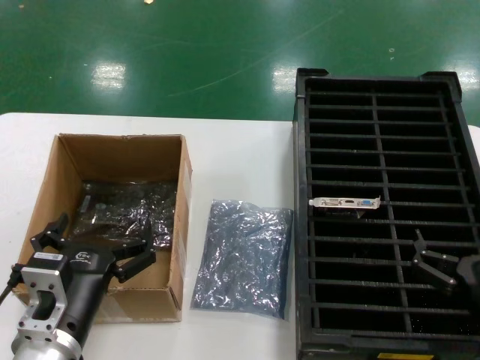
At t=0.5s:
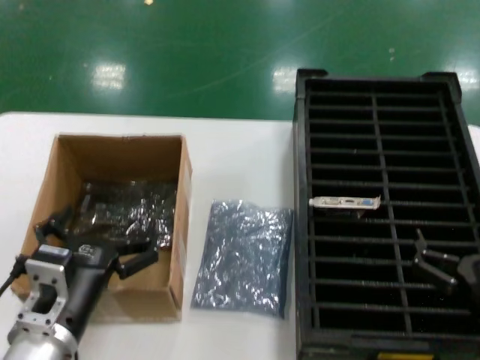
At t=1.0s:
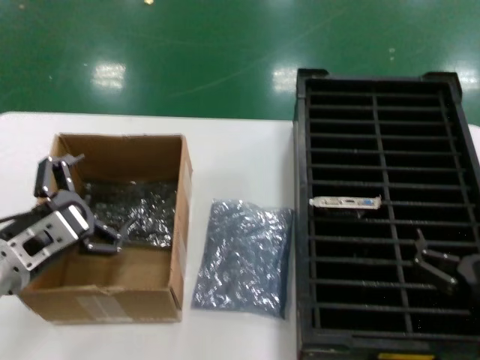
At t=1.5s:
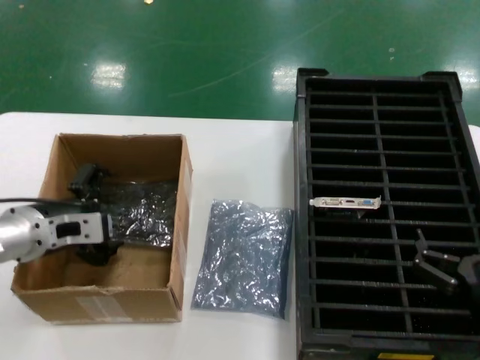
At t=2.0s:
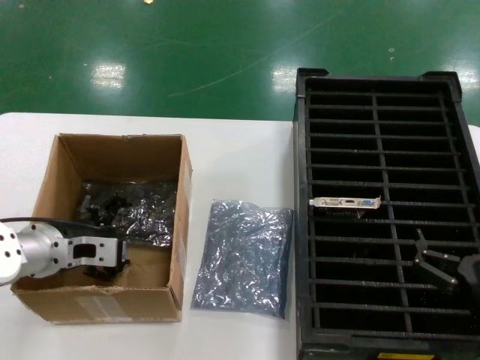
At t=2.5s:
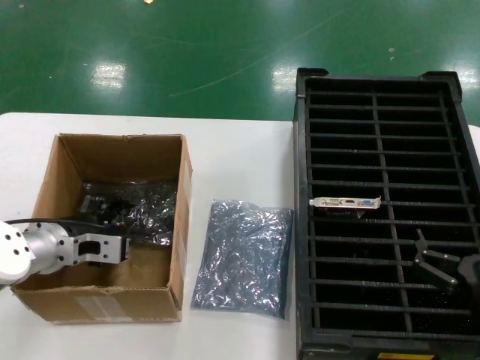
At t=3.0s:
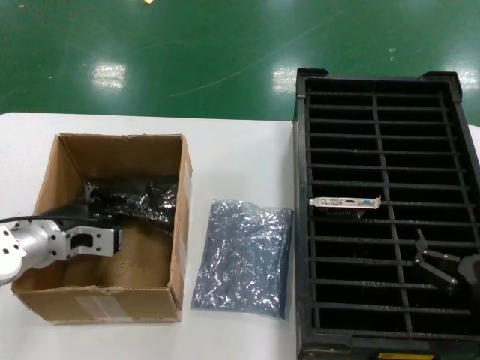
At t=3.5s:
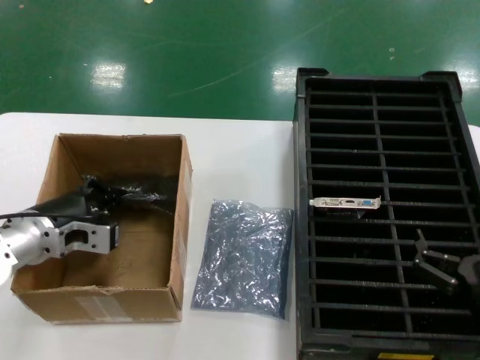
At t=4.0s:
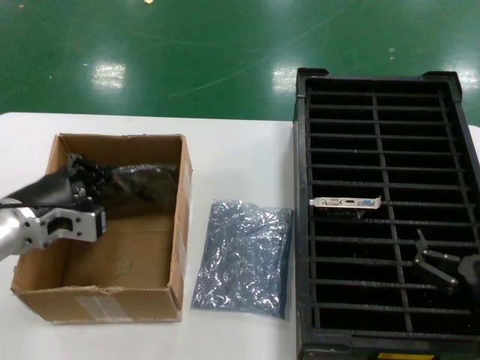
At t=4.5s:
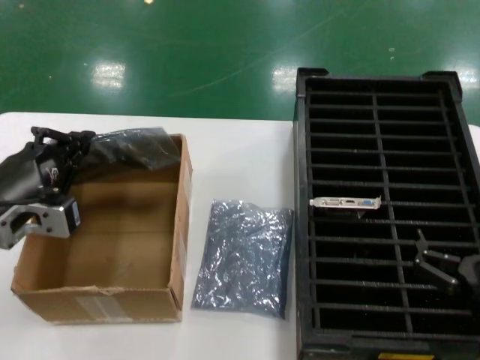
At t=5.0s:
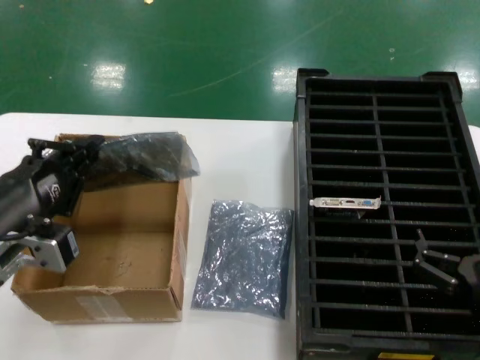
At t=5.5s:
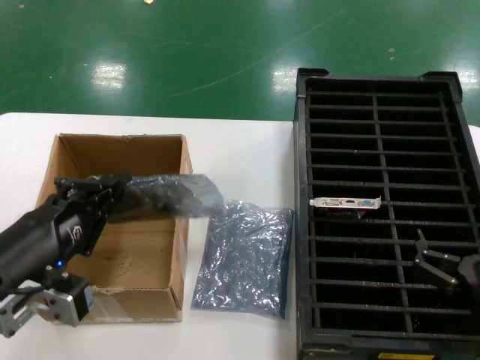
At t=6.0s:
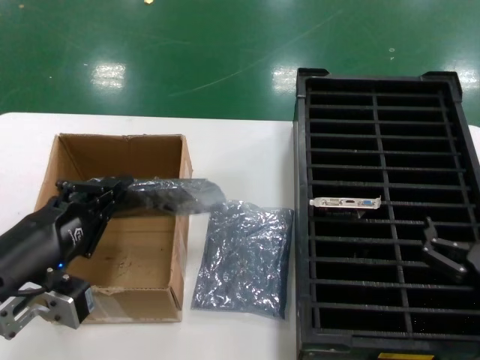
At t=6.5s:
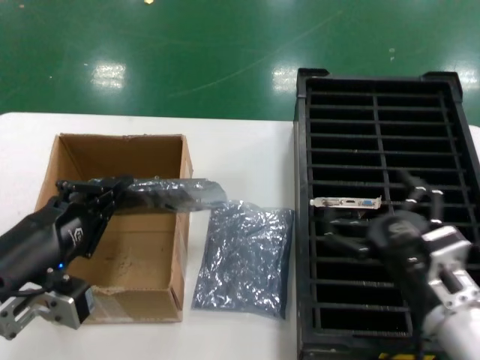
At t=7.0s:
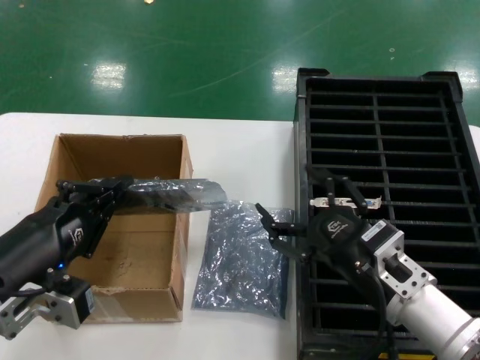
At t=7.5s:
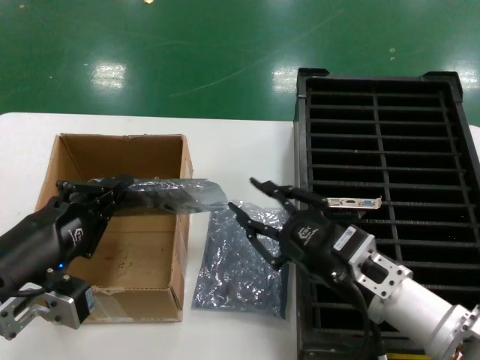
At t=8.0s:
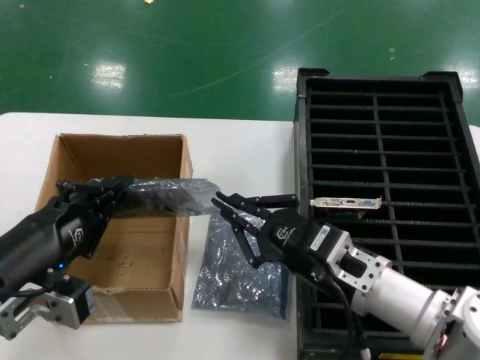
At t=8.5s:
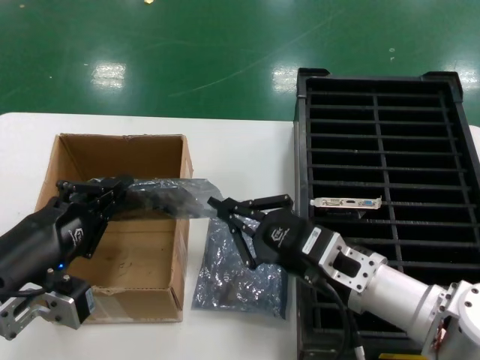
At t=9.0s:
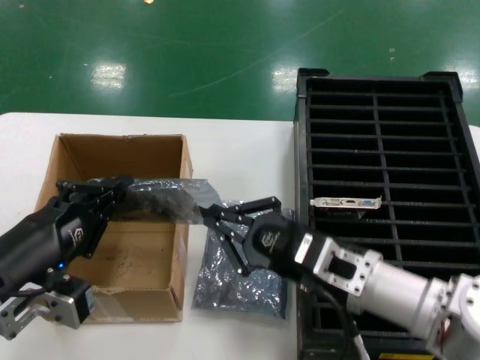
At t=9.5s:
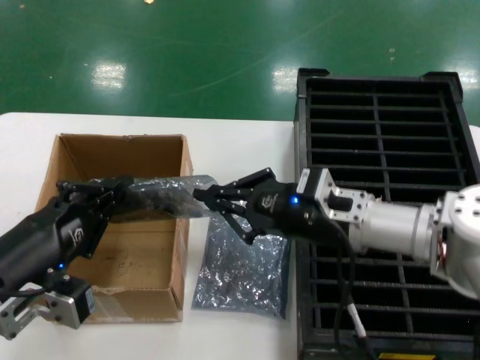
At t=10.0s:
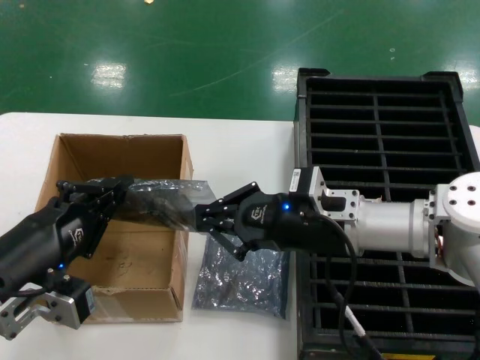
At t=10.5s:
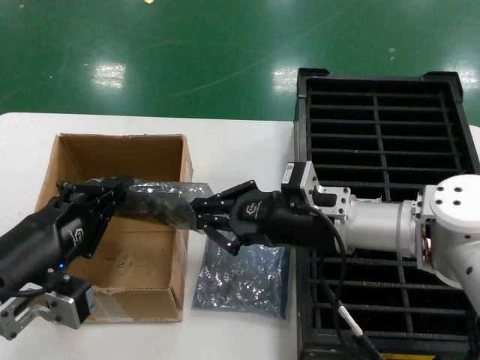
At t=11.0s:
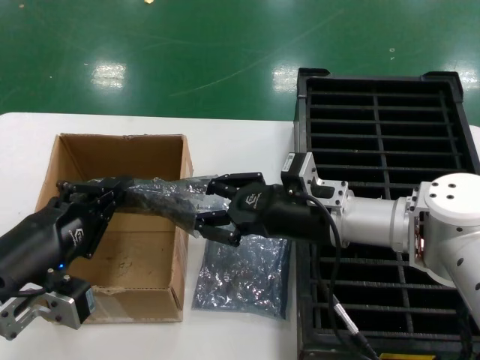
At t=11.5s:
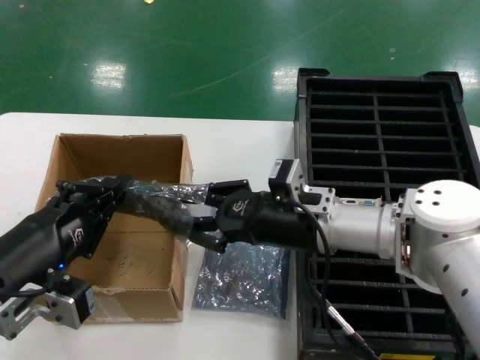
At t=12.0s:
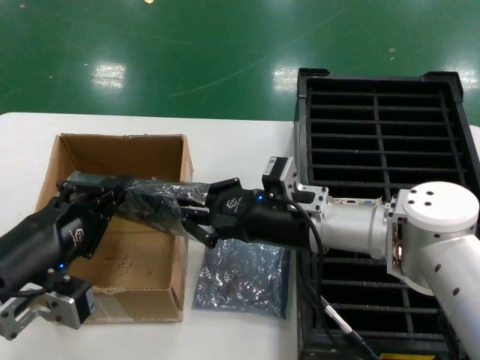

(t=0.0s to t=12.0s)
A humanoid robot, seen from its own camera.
Task of the whole recording: take out graphics card from box remove packaging put into black container.
Step, t=0.0s - t=2.5s: Grasp the bag.
Step, t=3.5s - t=5.5s: Lift the bag.
t=0.0s - t=2.0s: The left hand heads forward and to the left, covering roughly 20 cm.
t=2.0s - t=4.0s: The hands stay close to where they were, moving slightly.
t=4.0s - t=6.0s: The left hand travels backward by about 15 cm.
t=6.0s - t=8.0s: The right hand heads to the left and forward, covering approximately 15 cm.
t=8.0s - t=10.0s: The right hand goes about 10 cm forward and upward.
t=10.0s - t=12.0s: The hands stay close to where they were, moving slightly.

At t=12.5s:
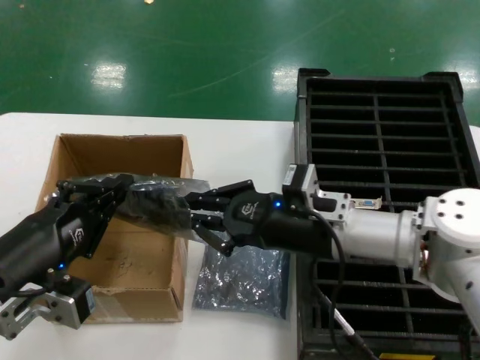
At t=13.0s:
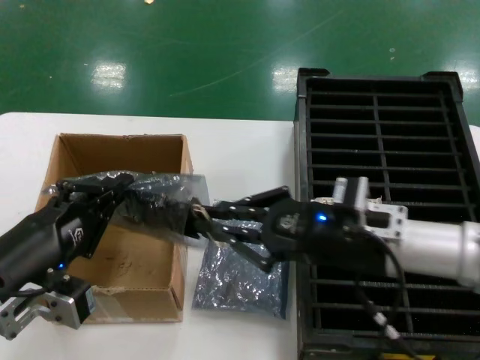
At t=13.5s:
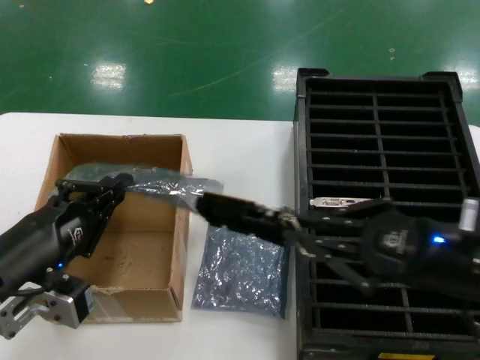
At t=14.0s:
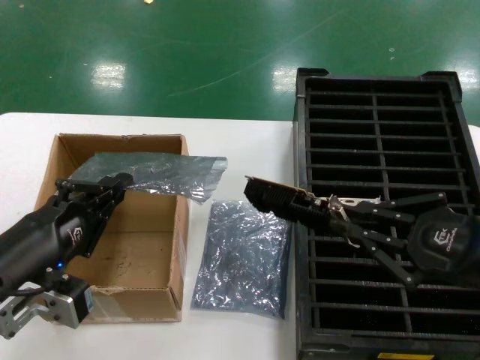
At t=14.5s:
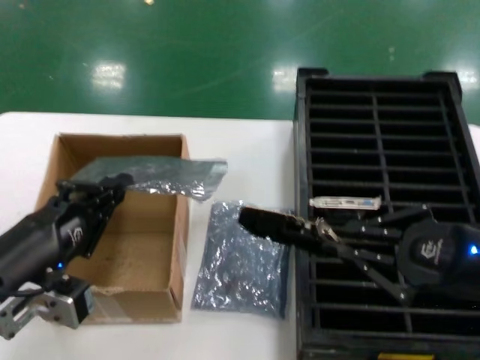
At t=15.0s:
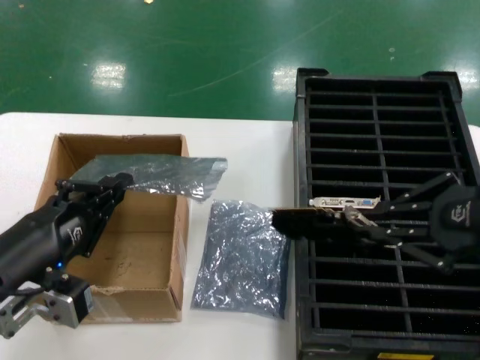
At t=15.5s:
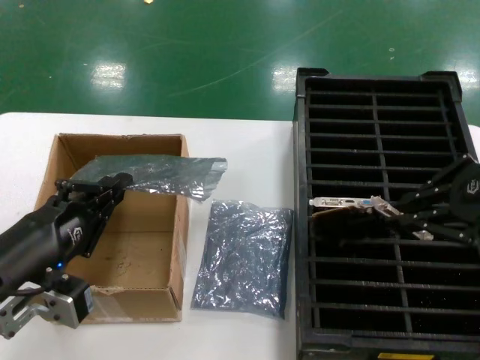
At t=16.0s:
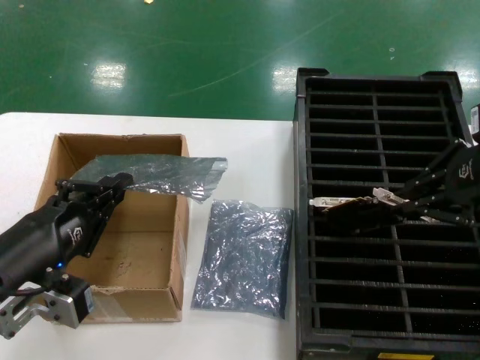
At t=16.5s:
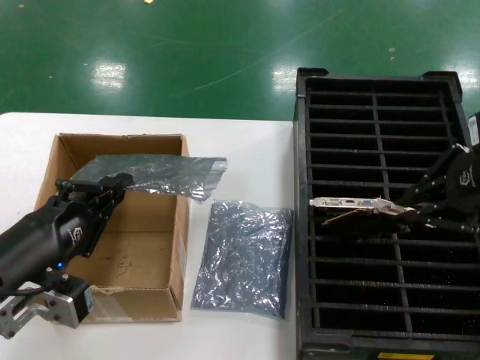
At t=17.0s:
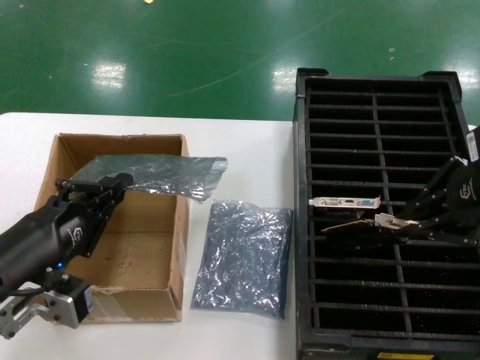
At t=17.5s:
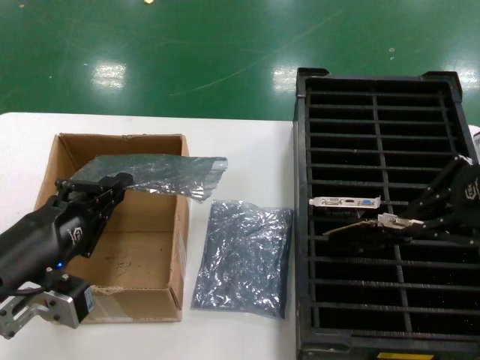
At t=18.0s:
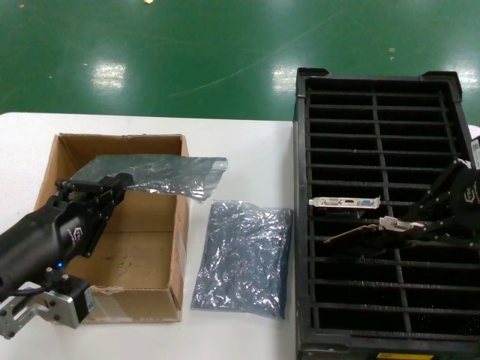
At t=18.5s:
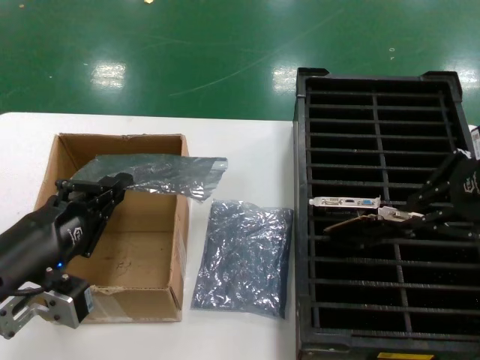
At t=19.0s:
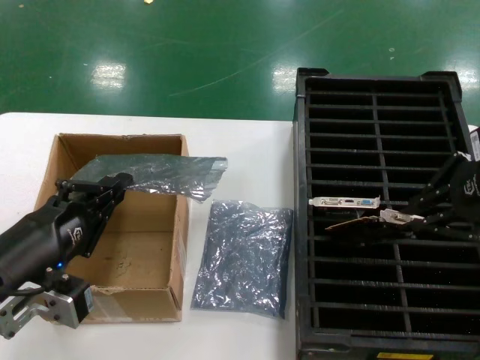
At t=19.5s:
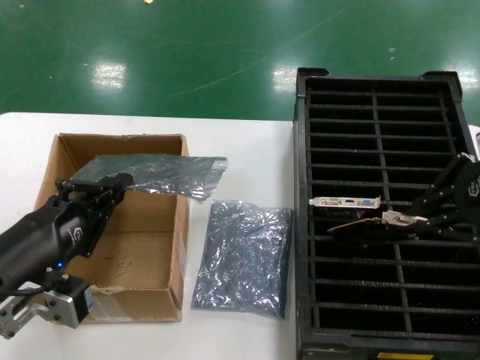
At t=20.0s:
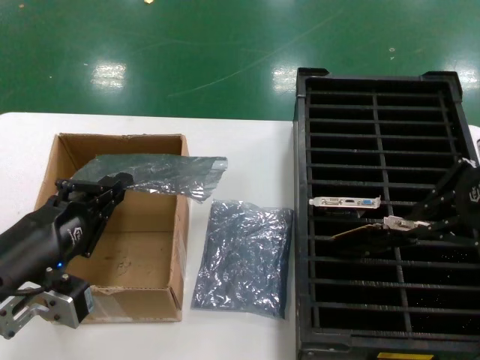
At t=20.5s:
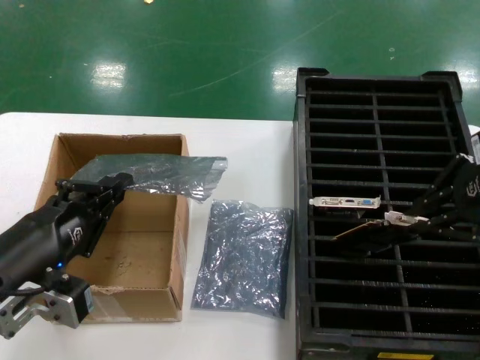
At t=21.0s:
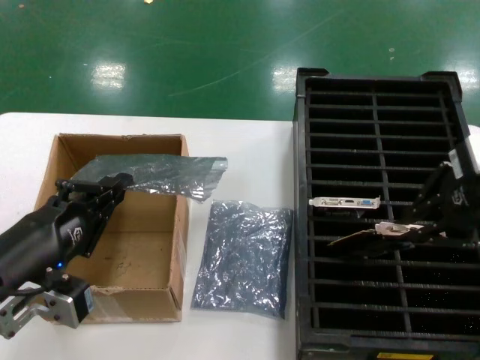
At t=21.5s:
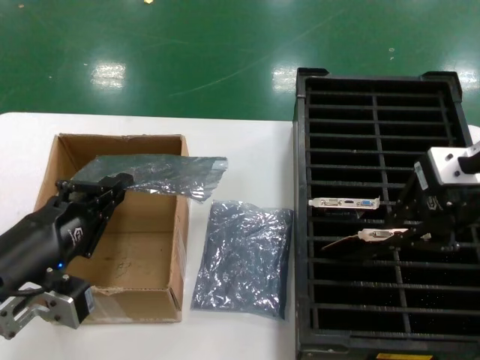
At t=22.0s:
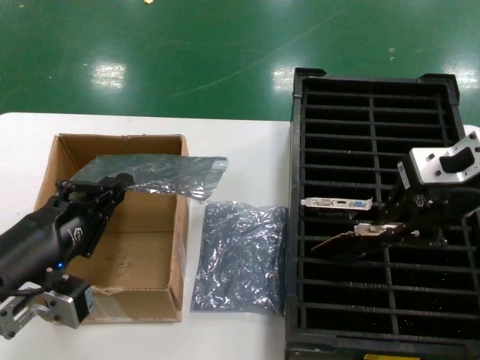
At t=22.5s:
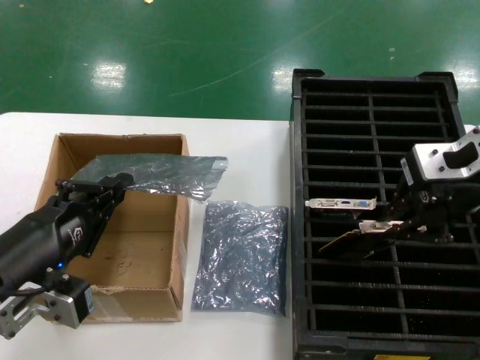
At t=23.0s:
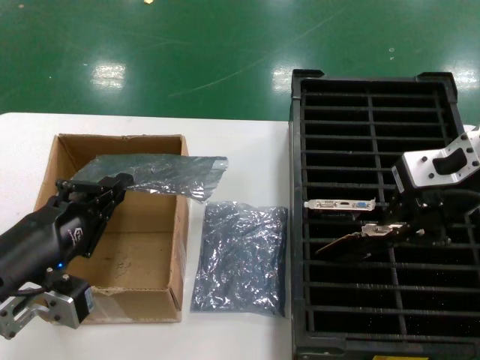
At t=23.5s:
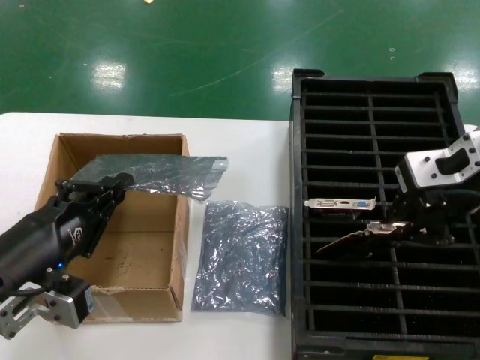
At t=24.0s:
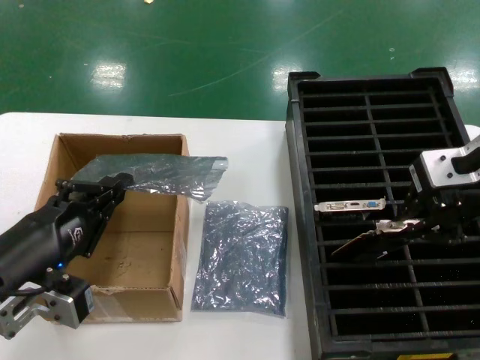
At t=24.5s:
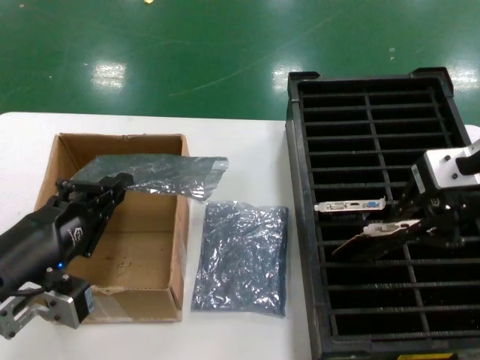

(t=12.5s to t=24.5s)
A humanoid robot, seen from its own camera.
Task of the whole recording: take out graphics card from box remove packaging put into black container.
t=12.5s - t=14.5s: The right hand travels to the right and backward by roughly 25 cm.
t=14.5s - t=16.5s: The right hand goes about 15 cm upward and forward.
t=16.5s - t=18.5s: The hands make only small movements.
t=18.5s - t=20.5s: Neither hand changes place.
t=20.5s - t=22.5s: The right hand goes approximately 5 cm to the left.
t=22.5s - t=24.5s: There are only small adjustments of the hands.

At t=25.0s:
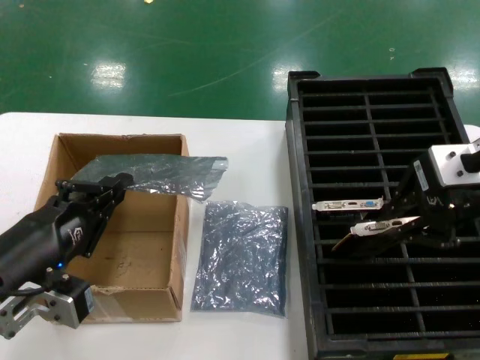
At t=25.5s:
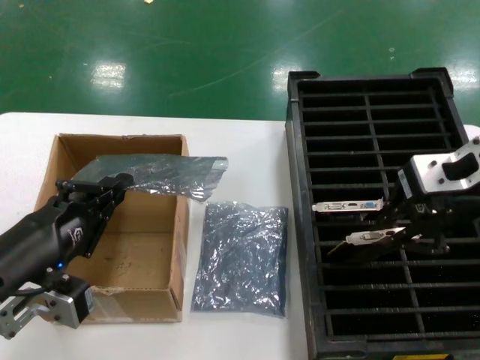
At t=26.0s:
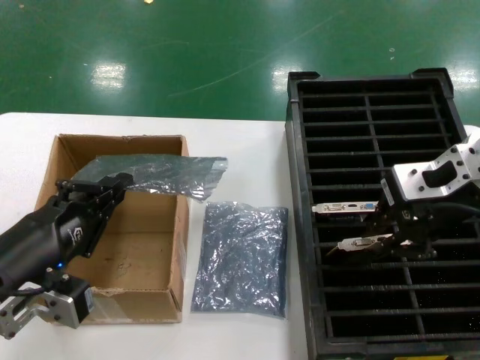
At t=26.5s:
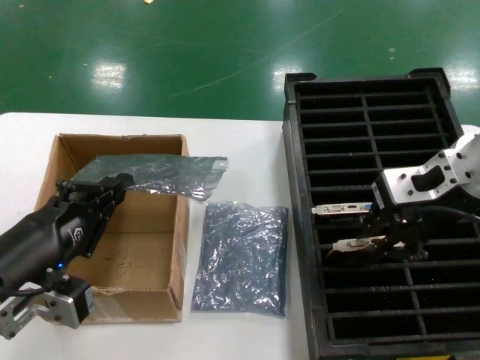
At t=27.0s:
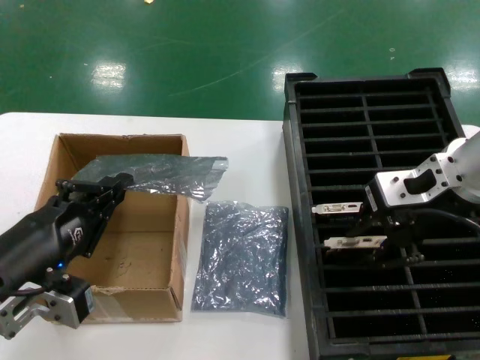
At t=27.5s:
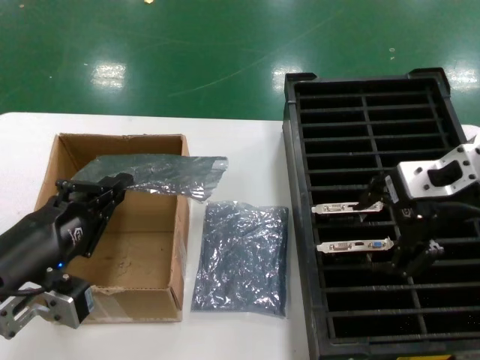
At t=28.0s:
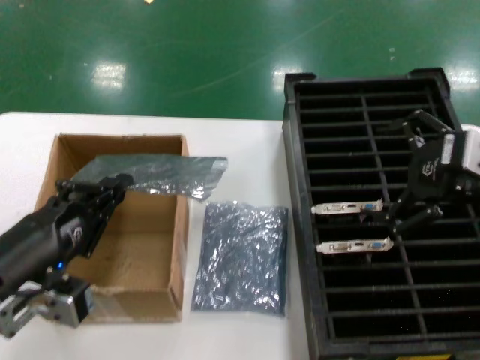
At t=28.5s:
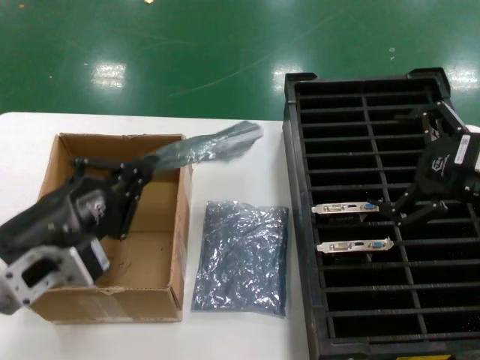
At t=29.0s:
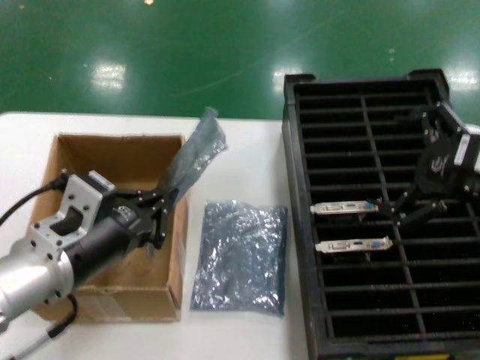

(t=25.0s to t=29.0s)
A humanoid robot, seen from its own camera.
Task of the whole recording: take out graphics card from box remove packaging put into black container.
Step, t=25.0s - t=27.5s: Place the hard disk in the hard disk enclosure.
t=25.0s - t=27.0s: The right hand goes some 5 cm downward.
t=27.0s - t=29.0s: The right hand goes some 10 cm to the right, while the left hand changes place by roughly 5 cm.
